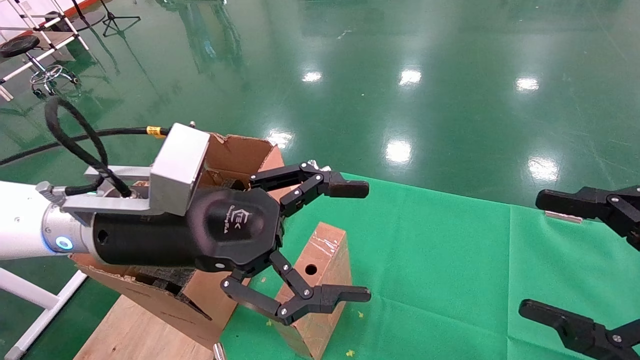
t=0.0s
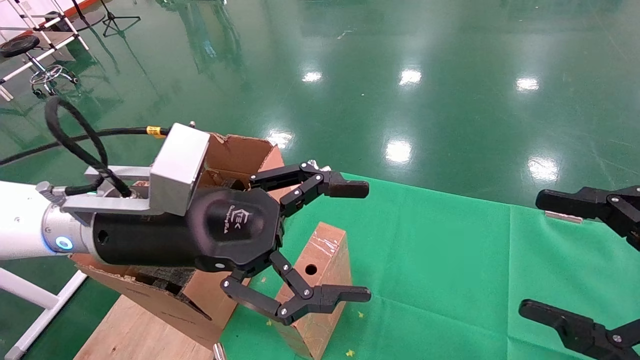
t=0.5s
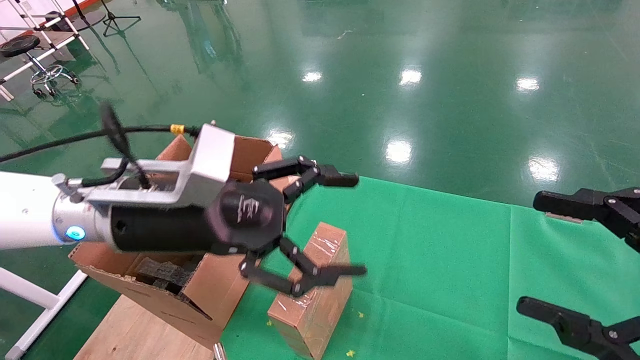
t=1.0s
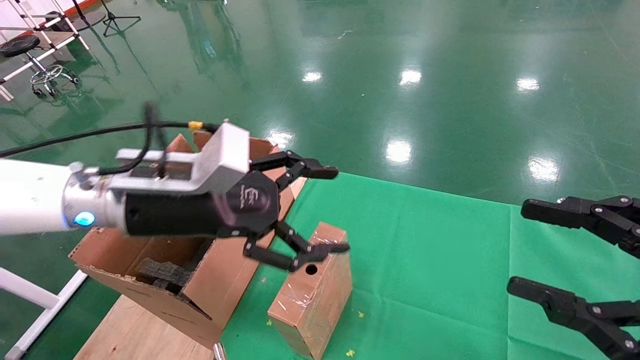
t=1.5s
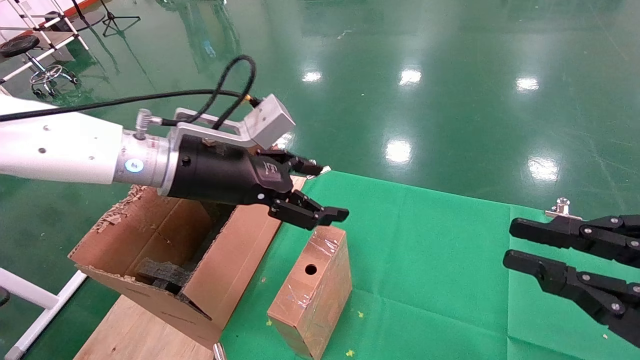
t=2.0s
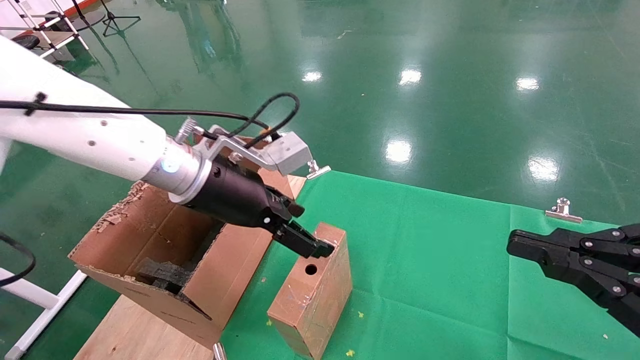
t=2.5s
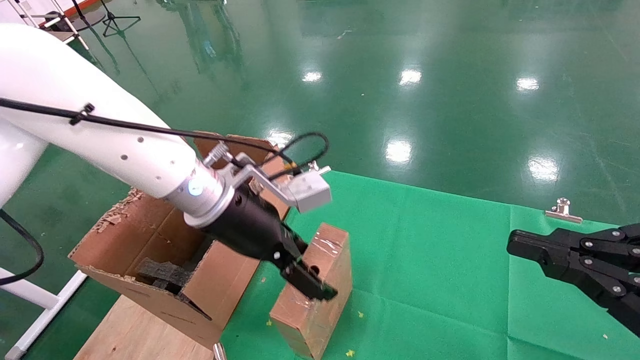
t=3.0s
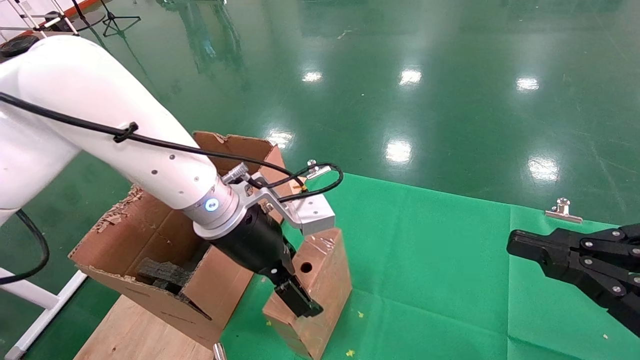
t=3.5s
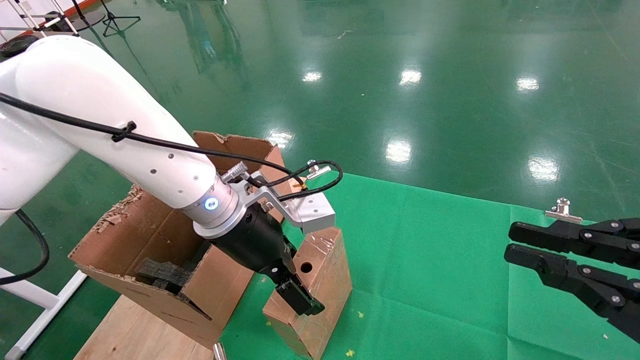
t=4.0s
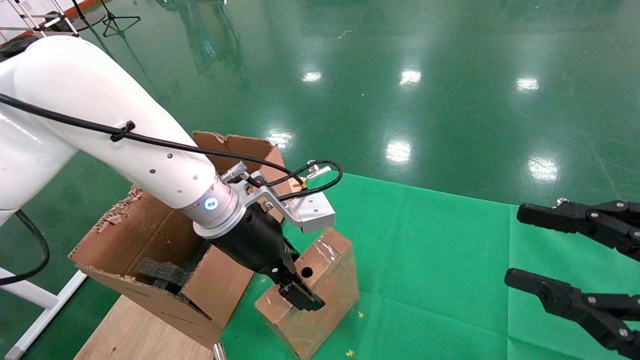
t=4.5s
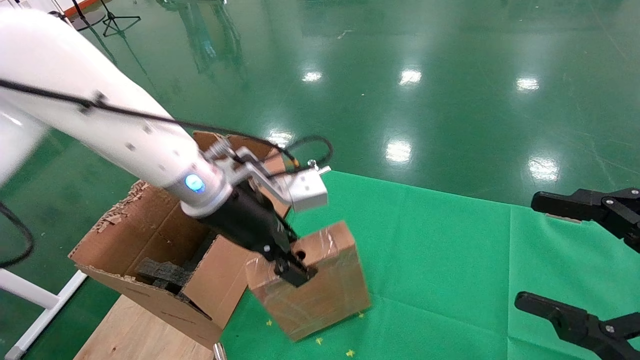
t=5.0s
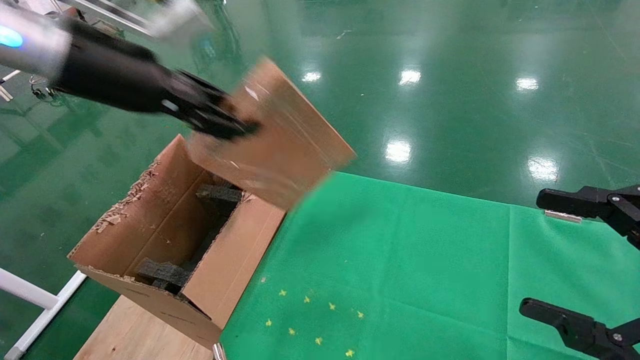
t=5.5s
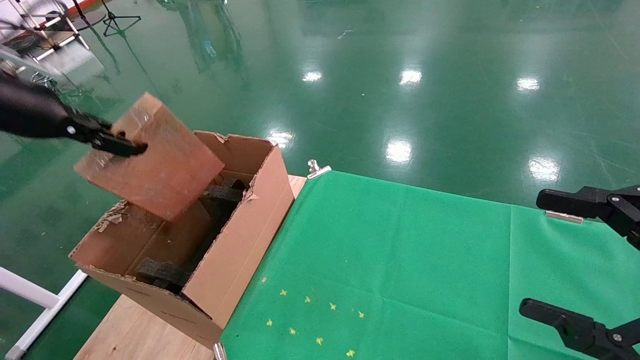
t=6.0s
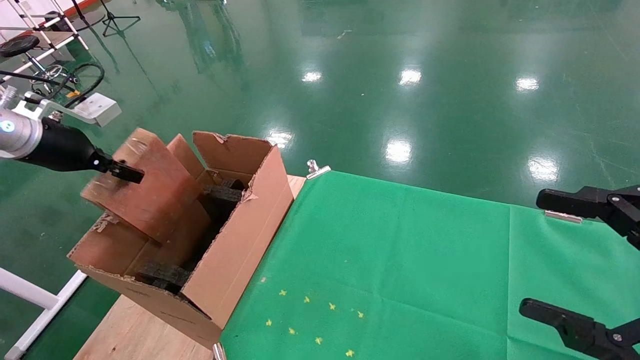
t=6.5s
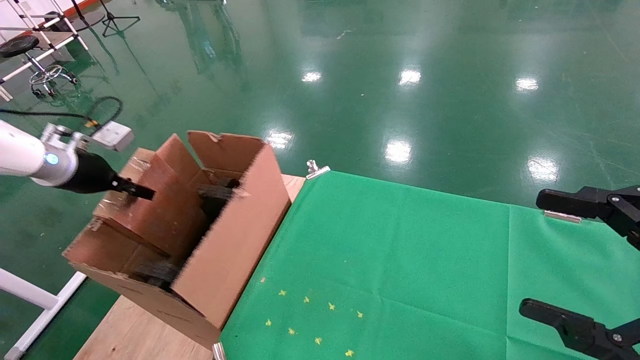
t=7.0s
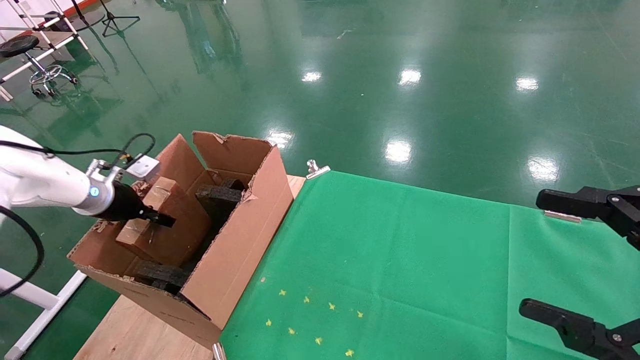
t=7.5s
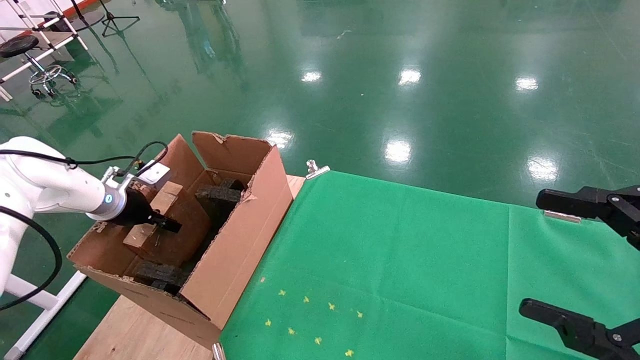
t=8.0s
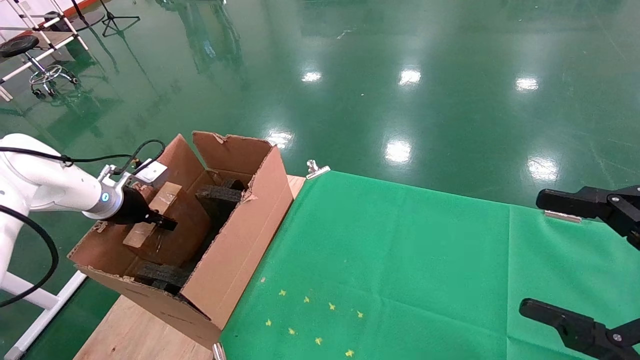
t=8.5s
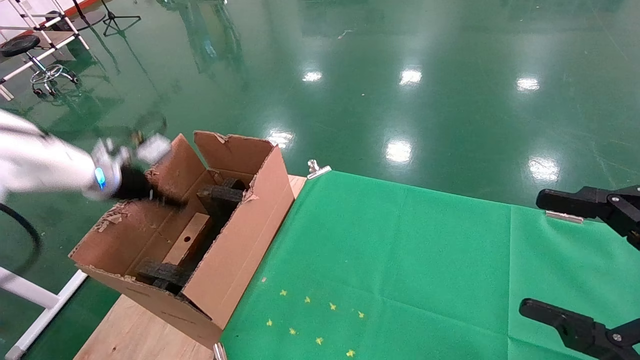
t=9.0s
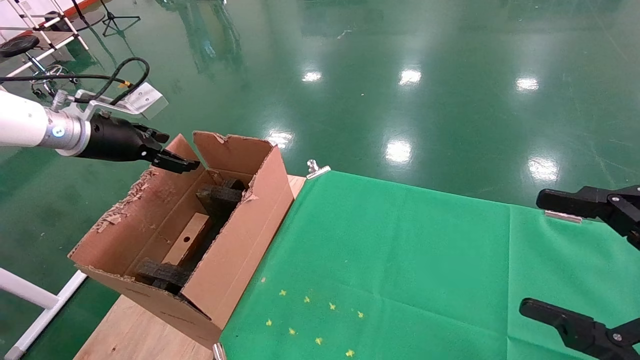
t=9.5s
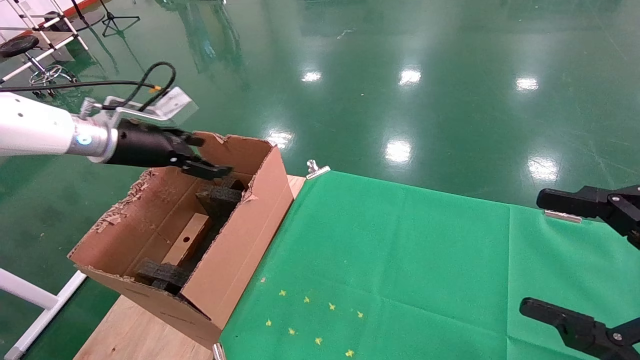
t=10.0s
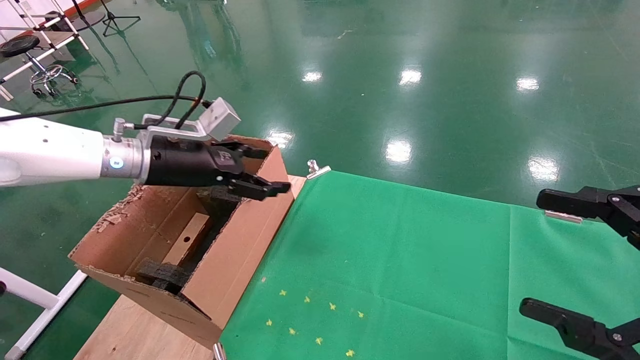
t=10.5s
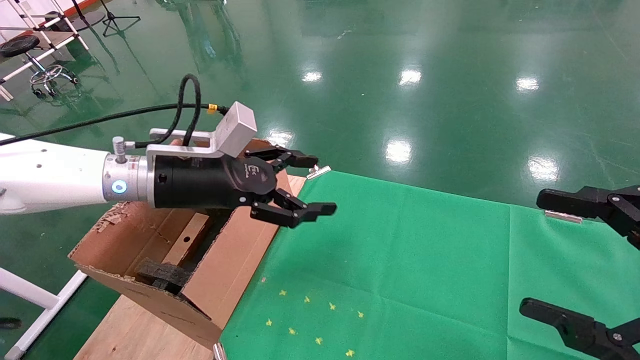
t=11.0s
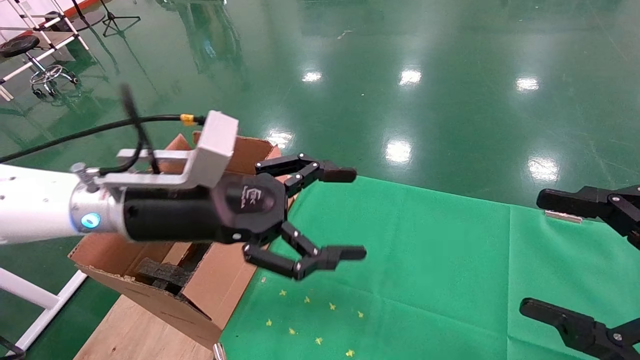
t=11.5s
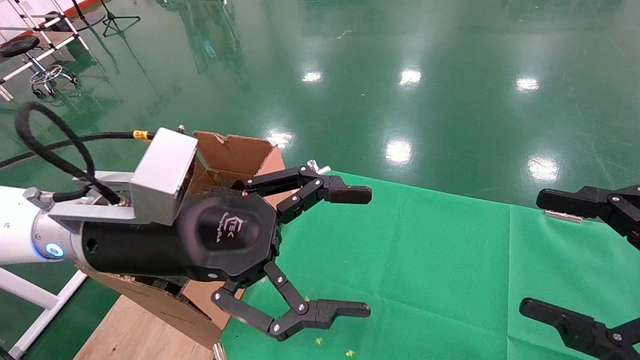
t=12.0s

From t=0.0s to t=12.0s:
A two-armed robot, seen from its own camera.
Task of the whole recording: using a robotic arm to pick up a cardboard box and palace it the carton.
Step, from t=1.0s to t=4.5s: Pick up the mouse and the power cord paper box.
Step, from t=5.0s to t=9.0s: Place the mouse and the power cord paper box into the container.
From t=0.0s to t=2.0s: The right gripper closes; the left gripper moves forward, some 10 cm.
From t=2.0s to t=4.0s: The left gripper goes about 5 cm to the right and downward.
From t=4.0s to t=6.0s: The left gripper moves to the left and upward, roughly 30 cm, and closes its fingers; the right gripper opens up.
From t=6.0s to t=8.0s: The left gripper is displaced downward and forward by some 25 cm.
From t=8.0s to t=10.0s: The left gripper shifts approximately 15 cm upward and to the right, and opens its fingers.
From t=10.0s to t=12.0s: The left gripper moves to the right and backward, approximately 25 cm.

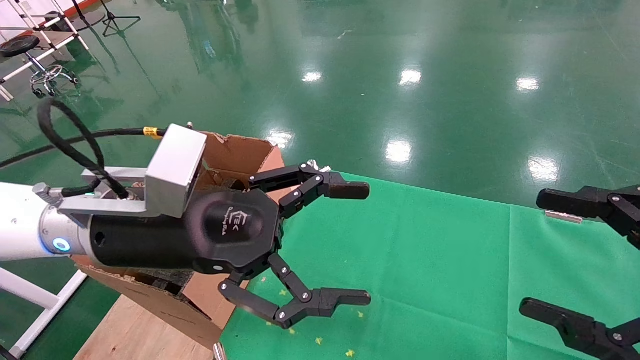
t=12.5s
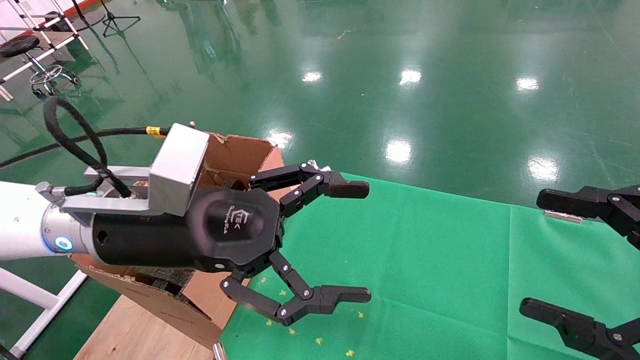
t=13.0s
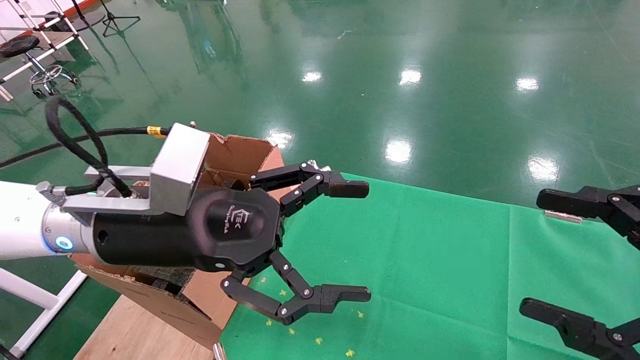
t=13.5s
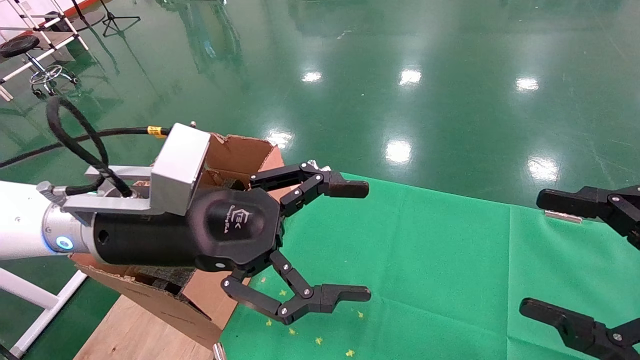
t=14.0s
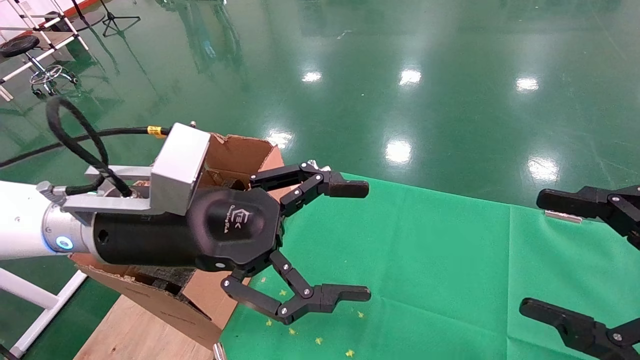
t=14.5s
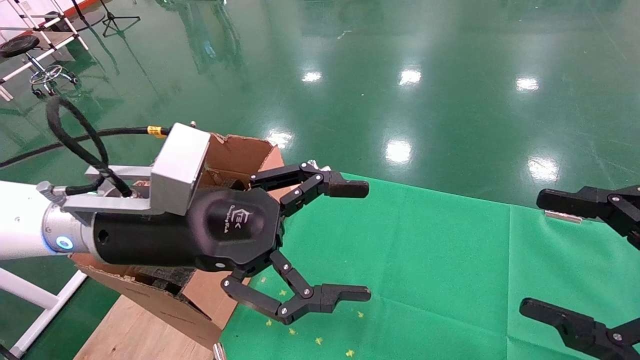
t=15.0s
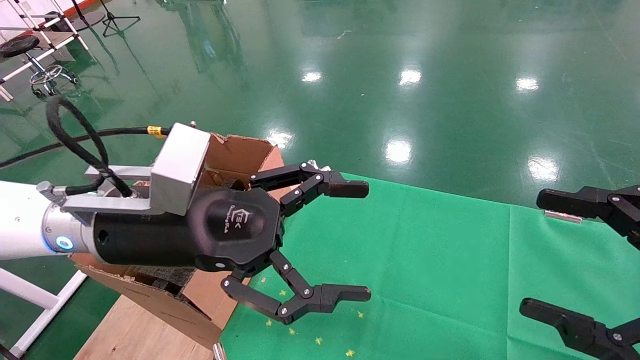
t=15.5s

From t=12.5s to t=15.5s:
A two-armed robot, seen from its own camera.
Task of the whole recording: using a robotic arm to pick up a cardboard box and palace it the carton.
From t=12.5s to t=15.5s: Both grippers stay about where they are.
